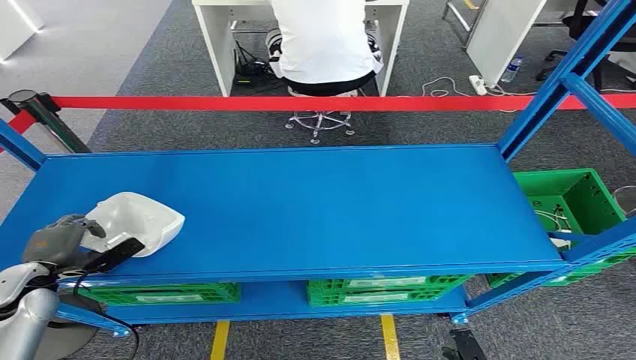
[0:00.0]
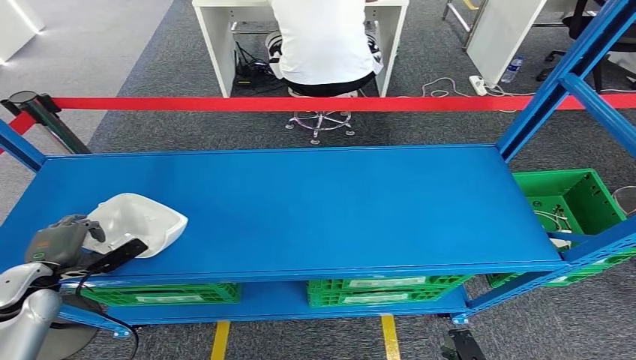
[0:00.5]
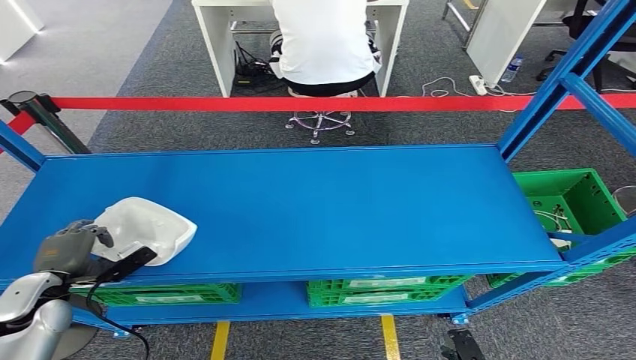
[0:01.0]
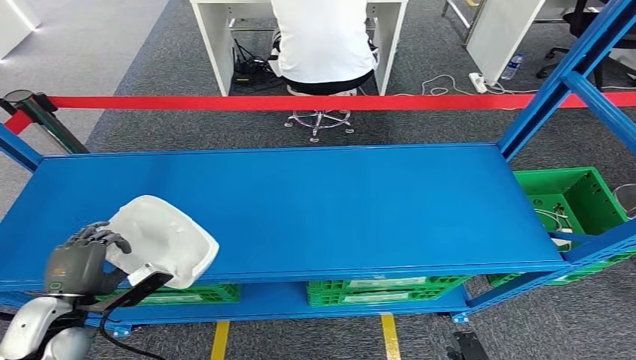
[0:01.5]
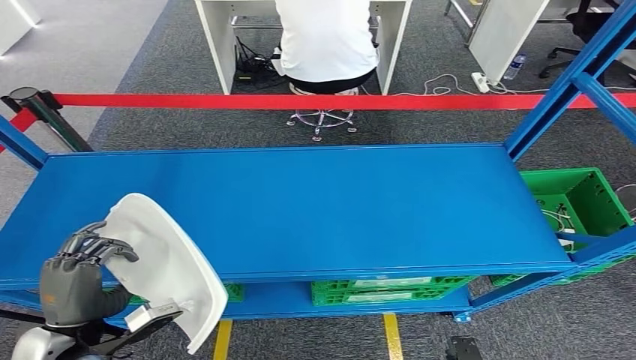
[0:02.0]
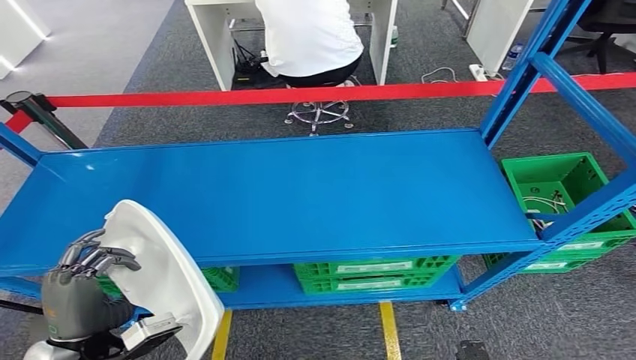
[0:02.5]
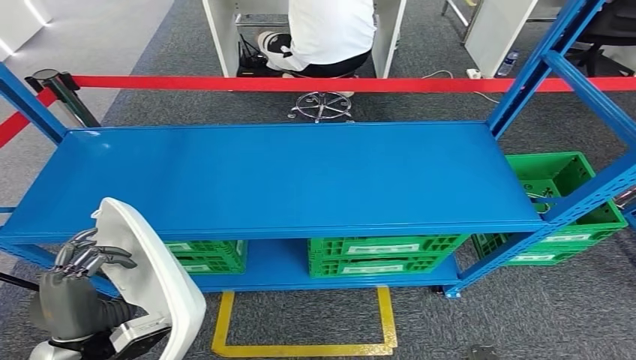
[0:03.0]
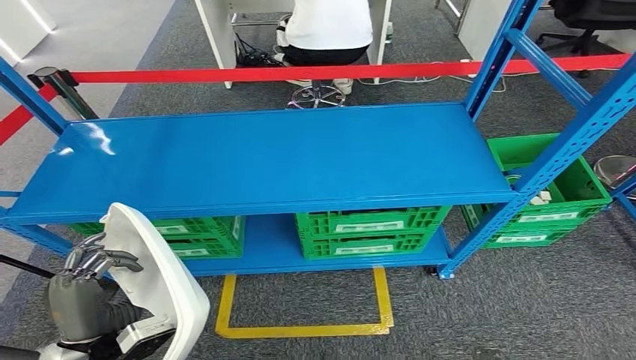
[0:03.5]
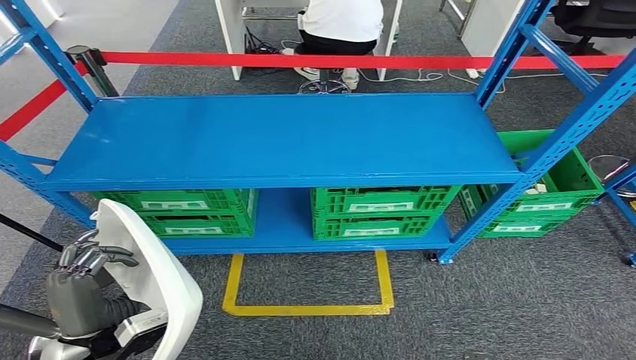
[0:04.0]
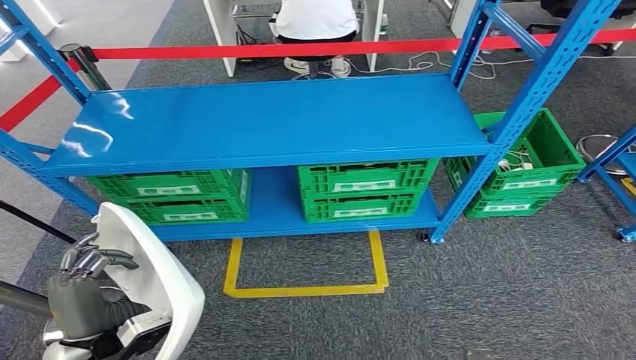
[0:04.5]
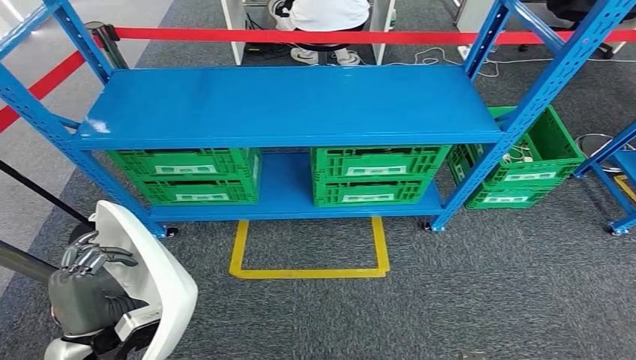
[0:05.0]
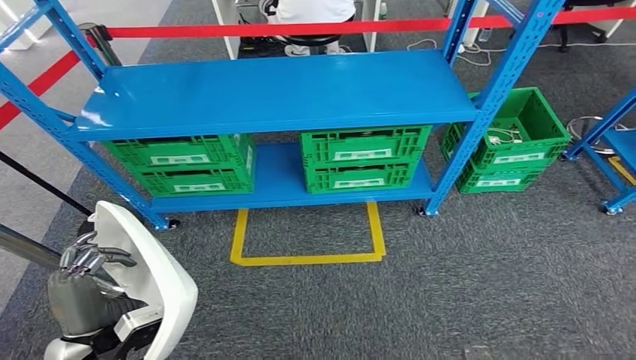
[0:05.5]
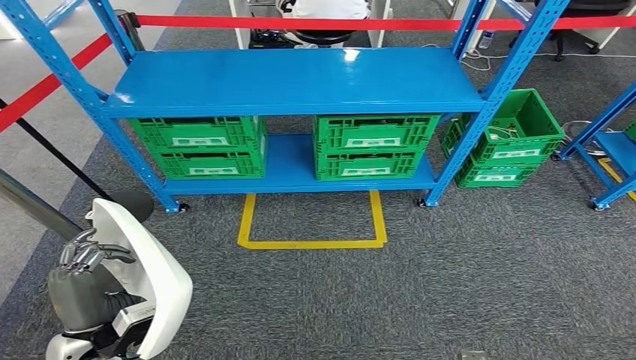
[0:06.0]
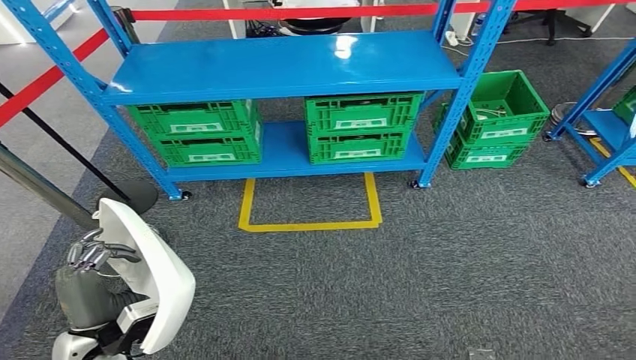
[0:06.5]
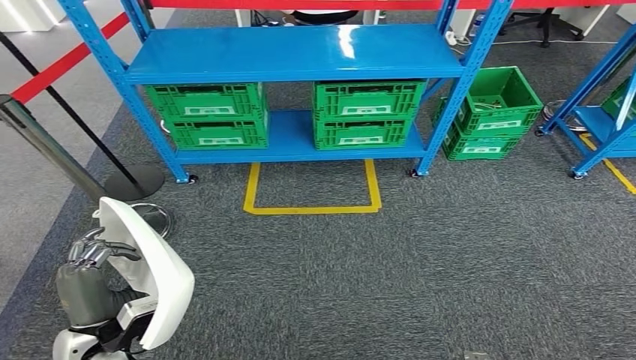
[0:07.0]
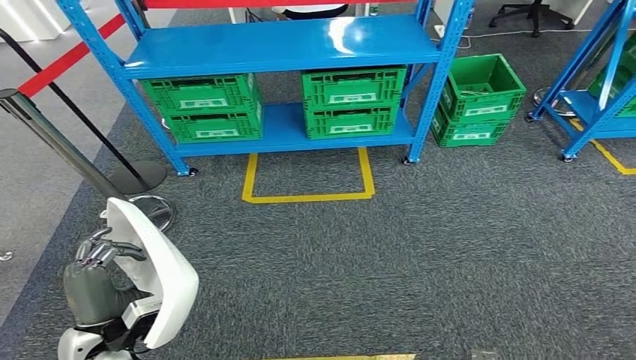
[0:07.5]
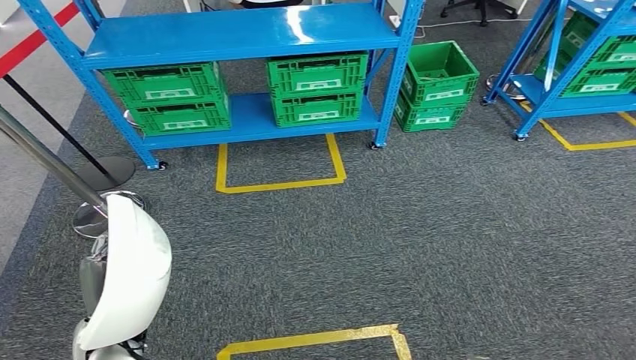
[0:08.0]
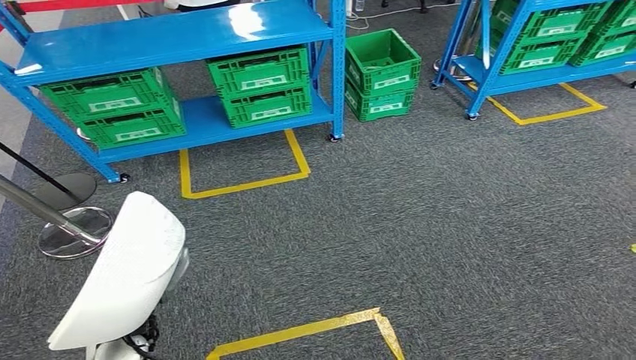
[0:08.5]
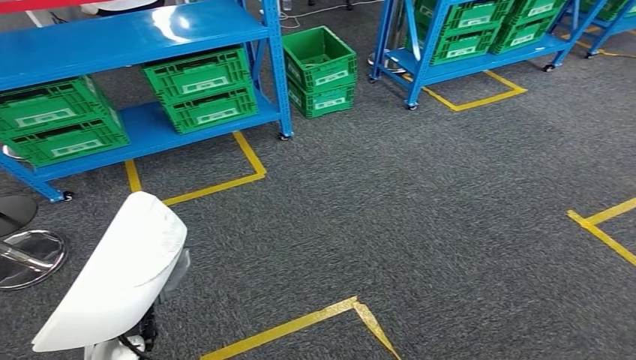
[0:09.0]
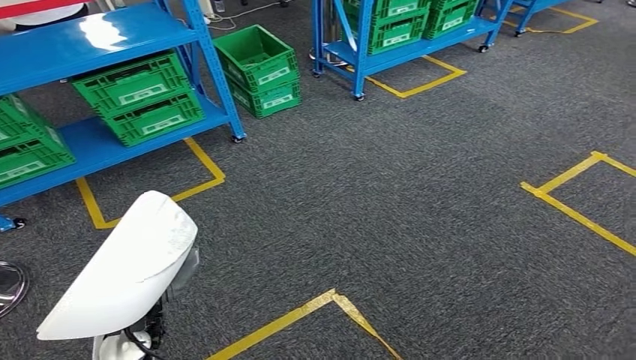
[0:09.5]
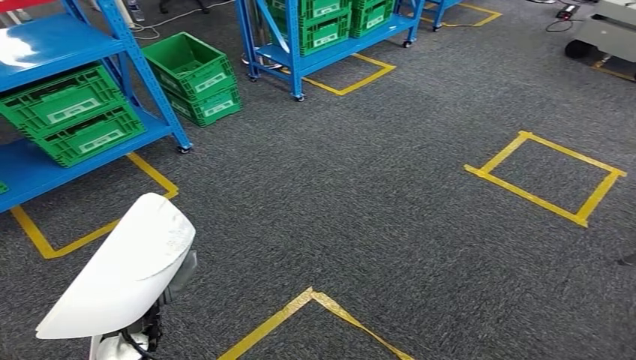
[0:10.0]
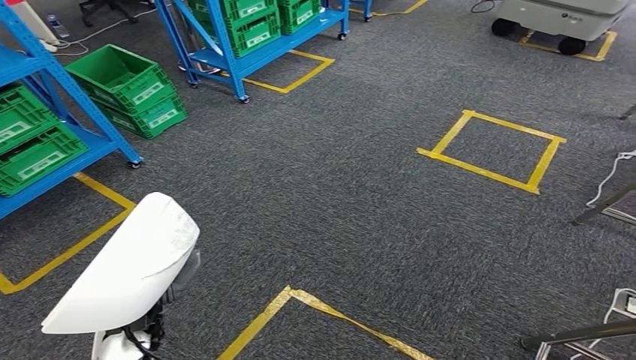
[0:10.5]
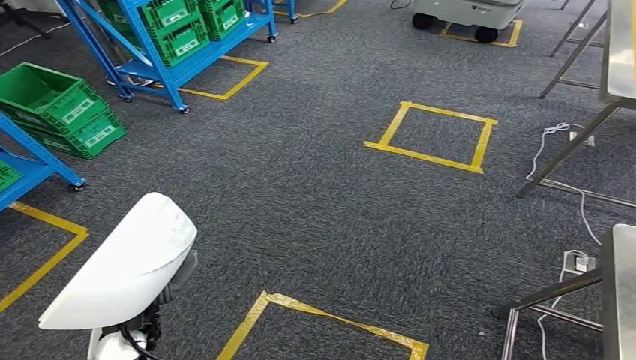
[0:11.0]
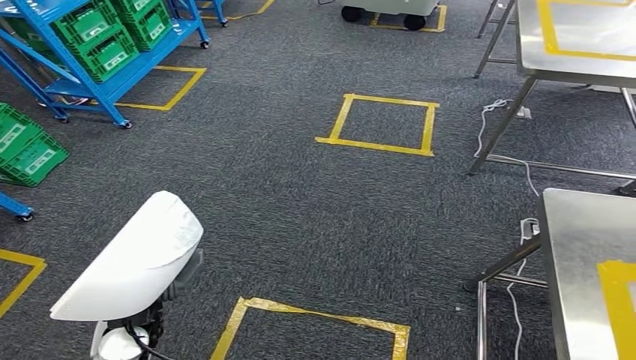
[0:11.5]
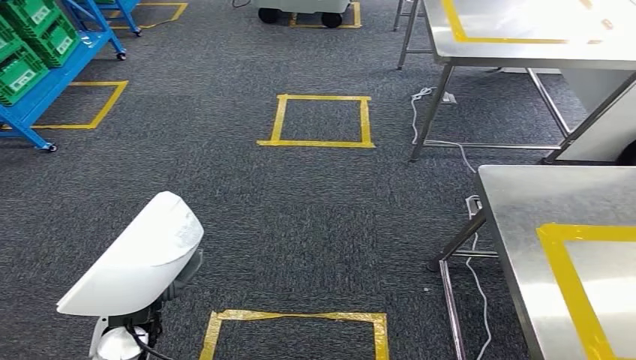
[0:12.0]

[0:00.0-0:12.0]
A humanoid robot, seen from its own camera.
Step, 0:00.0 to 0:02.0: Pick up the small parts from the shelf.

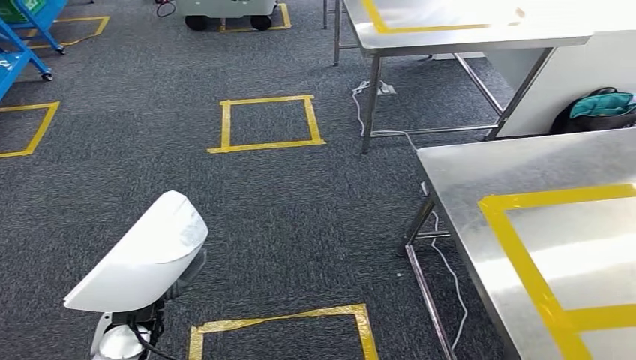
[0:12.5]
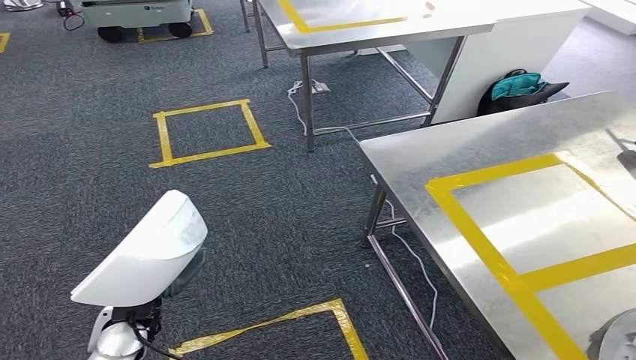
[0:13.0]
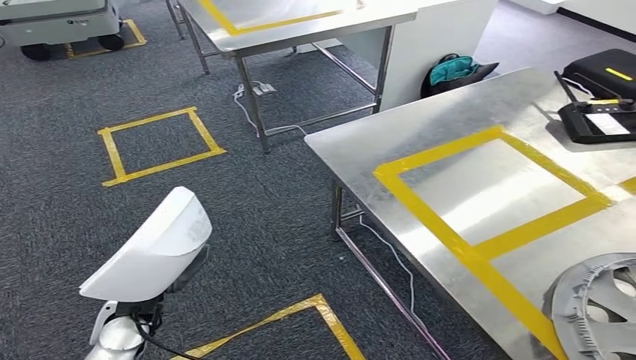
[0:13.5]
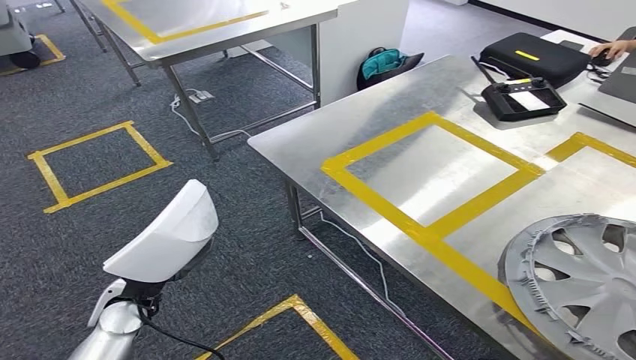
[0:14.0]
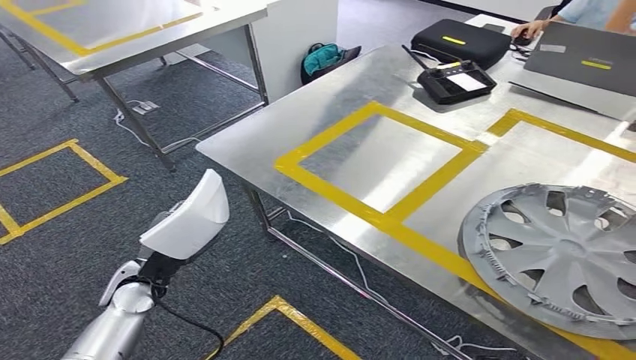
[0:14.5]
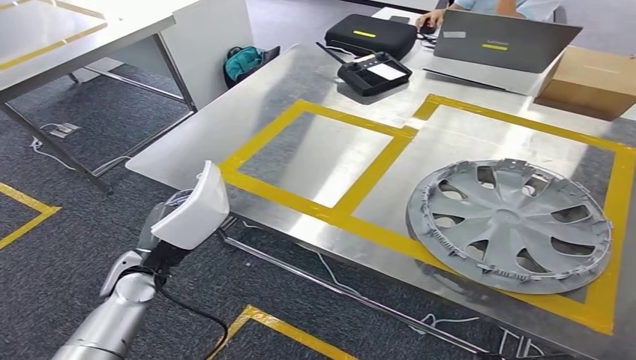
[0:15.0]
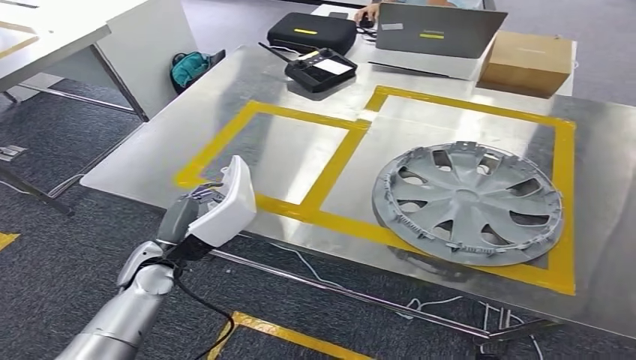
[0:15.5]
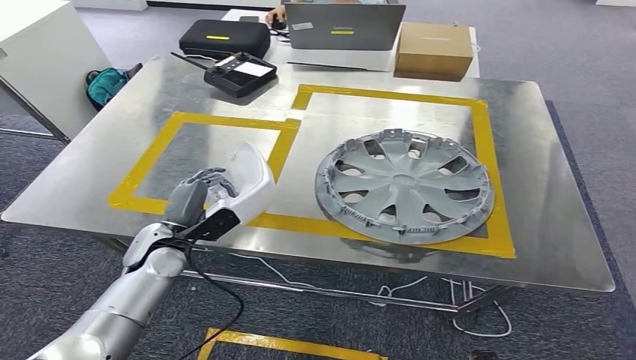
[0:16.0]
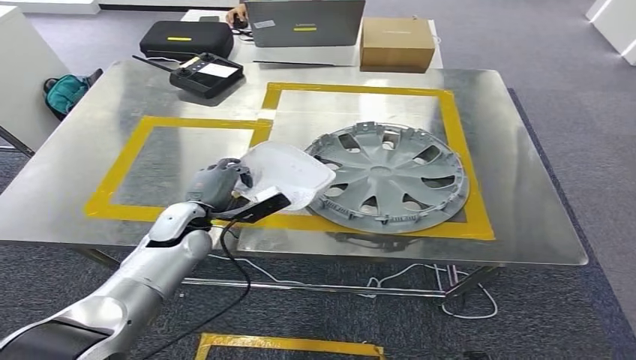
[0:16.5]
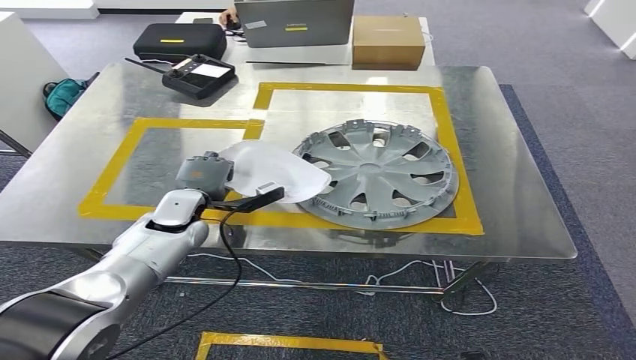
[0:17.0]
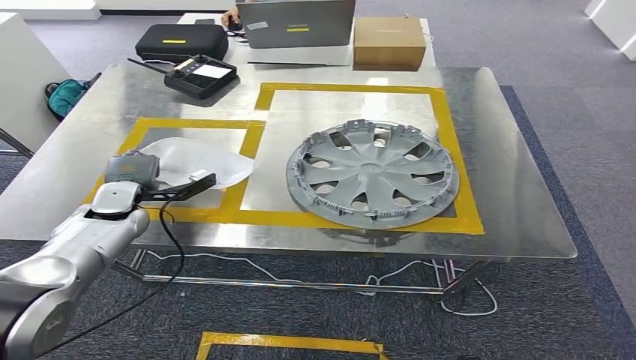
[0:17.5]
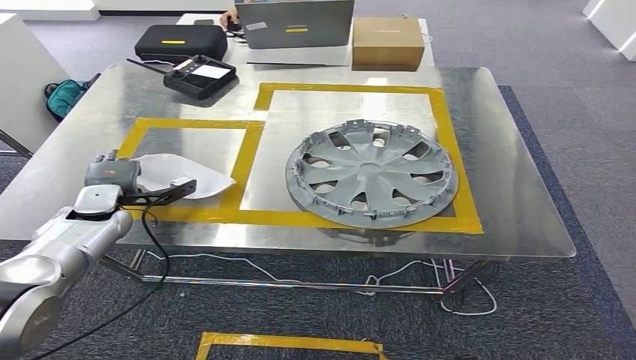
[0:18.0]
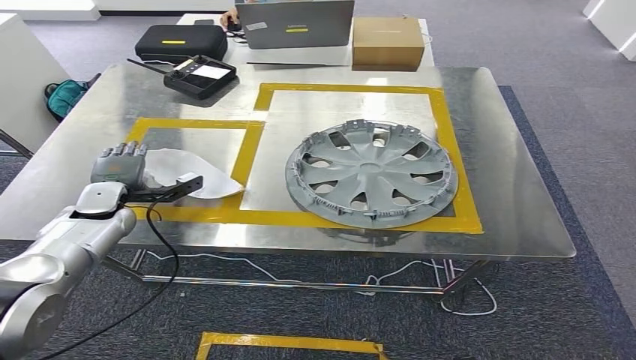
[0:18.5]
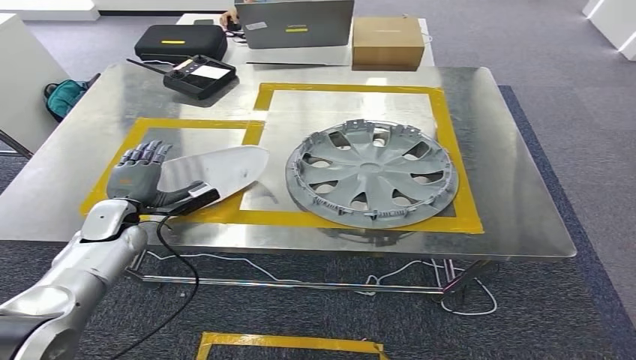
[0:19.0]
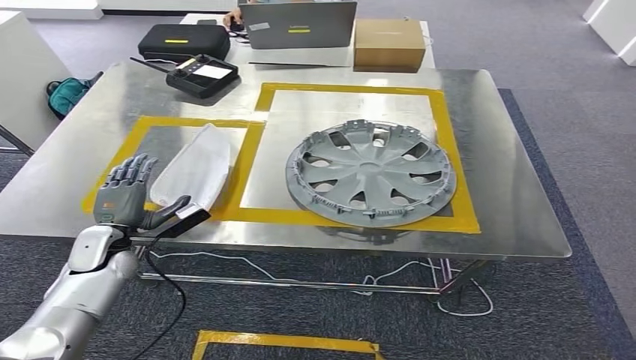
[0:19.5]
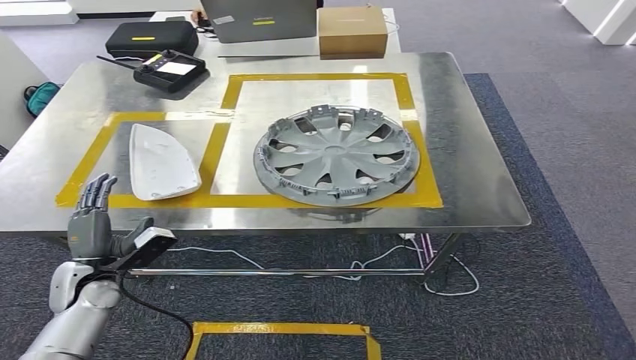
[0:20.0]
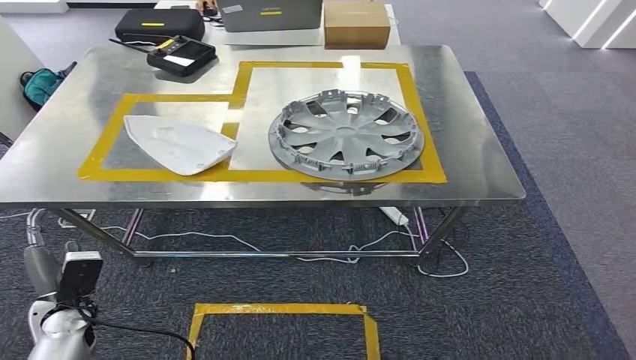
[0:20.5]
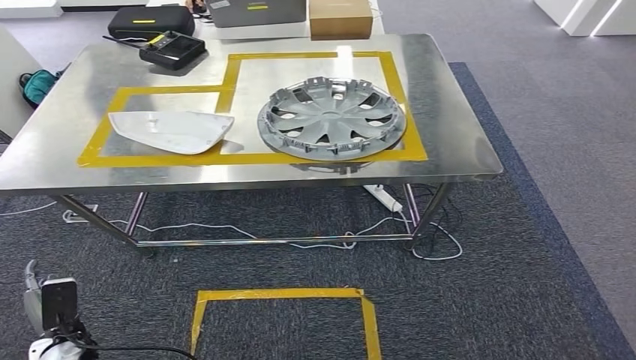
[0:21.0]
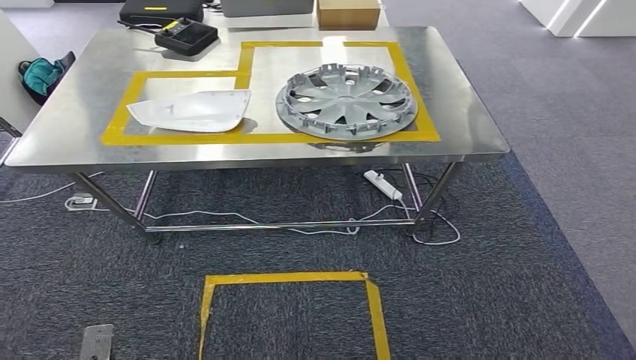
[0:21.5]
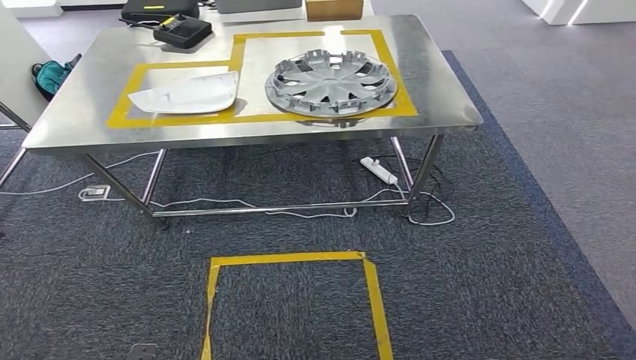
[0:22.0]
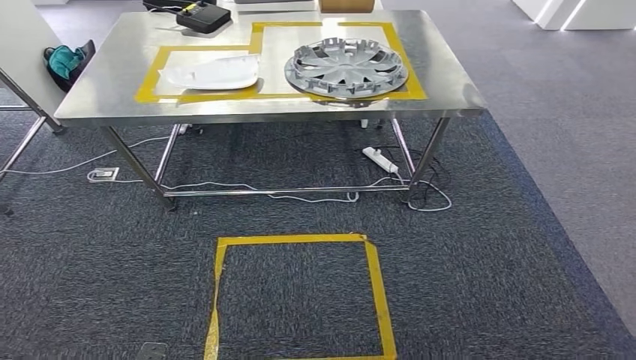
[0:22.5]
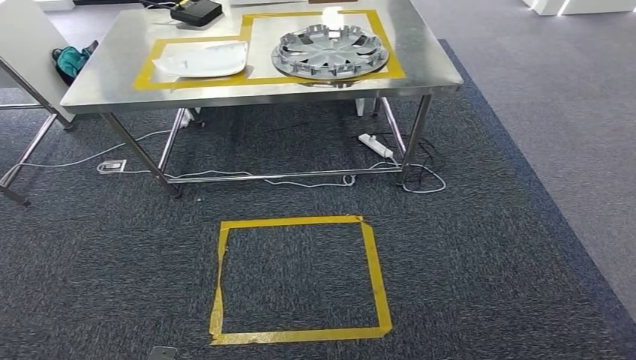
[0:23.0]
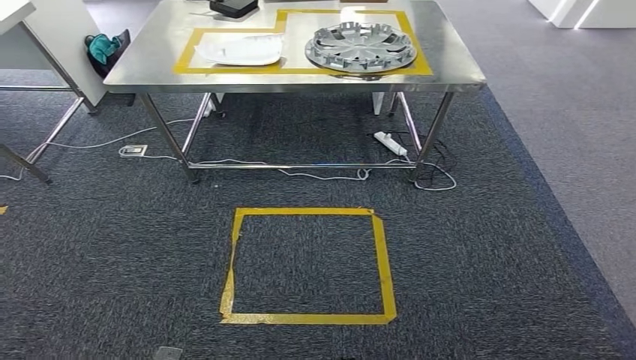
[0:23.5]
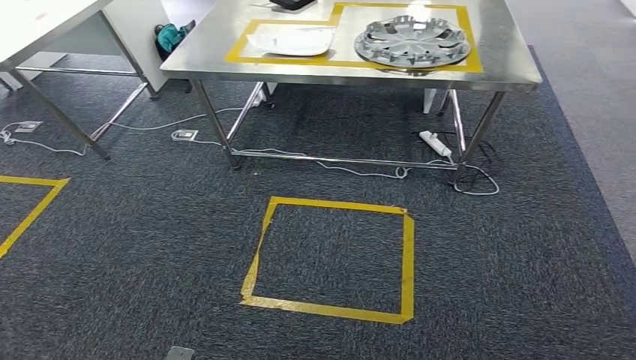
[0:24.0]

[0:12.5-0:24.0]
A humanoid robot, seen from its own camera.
Step, 0:12.5 to 0:15.0: Move the small parts to the workbench.
Step, 0:15.5 to 0:20.5: Insert the small parts into the corresponding slots on the workbench.
